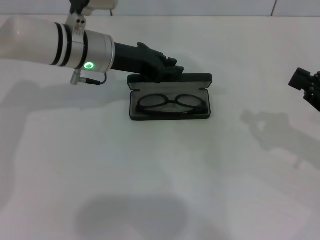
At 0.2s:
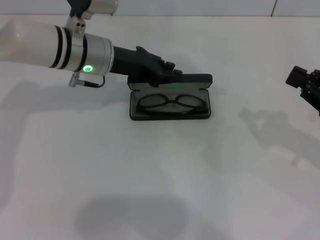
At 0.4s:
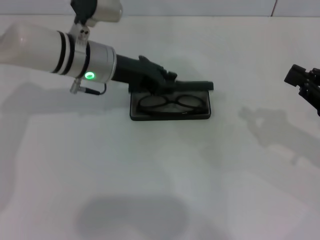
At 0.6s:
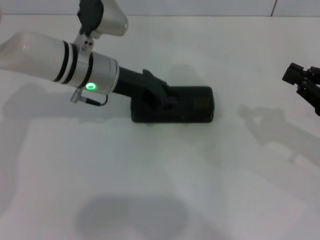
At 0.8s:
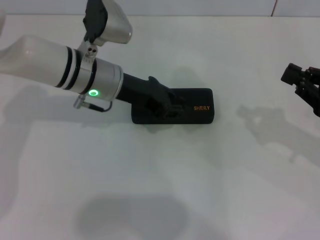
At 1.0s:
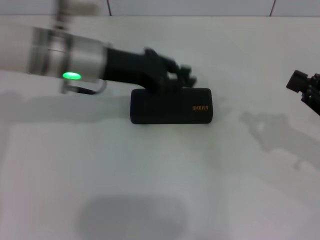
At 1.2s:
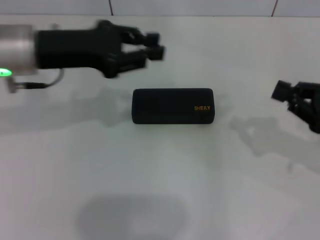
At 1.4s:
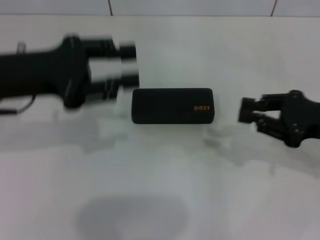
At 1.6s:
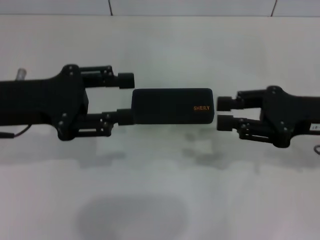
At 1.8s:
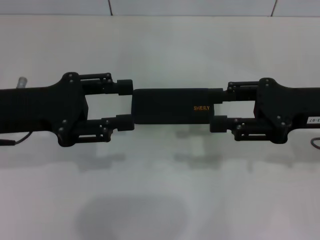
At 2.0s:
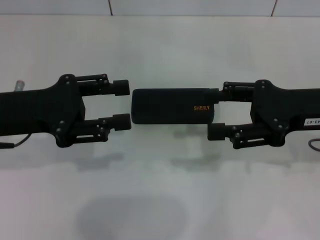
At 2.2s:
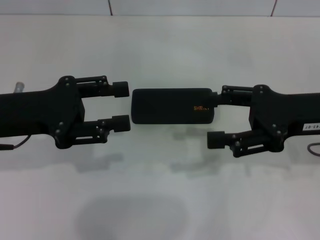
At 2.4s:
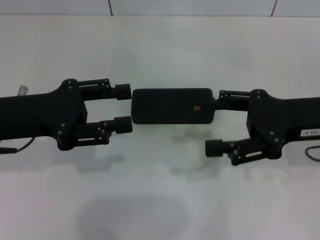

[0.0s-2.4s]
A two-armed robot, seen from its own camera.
0.0s to 1.2s: The left gripper is displaced backward, to the left and upward by approximately 15 cm.
1.2s to 2.4s: The left gripper moves backward, approximately 5 cm, and opens its fingers. Meanwhile the right gripper heads to the left, covering some 10 cm, and opens up.

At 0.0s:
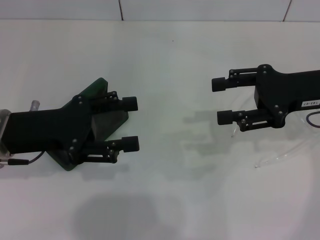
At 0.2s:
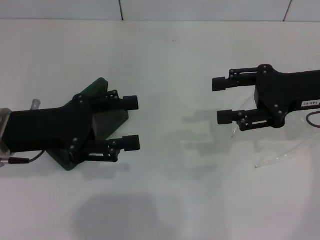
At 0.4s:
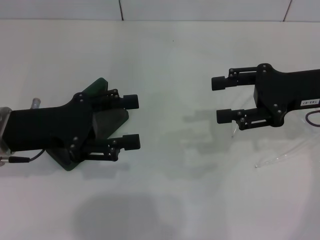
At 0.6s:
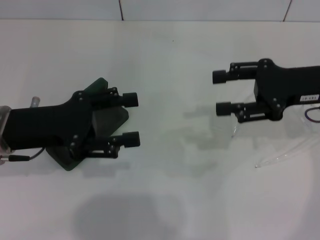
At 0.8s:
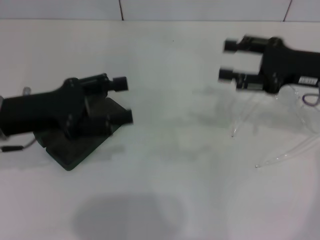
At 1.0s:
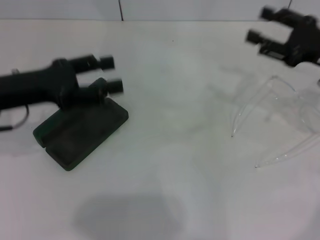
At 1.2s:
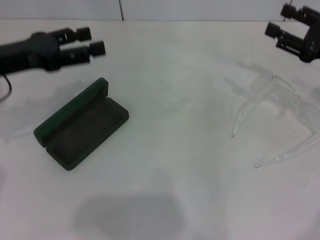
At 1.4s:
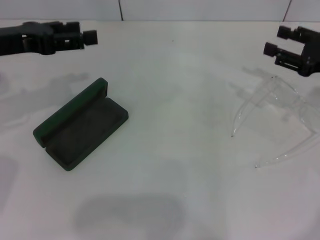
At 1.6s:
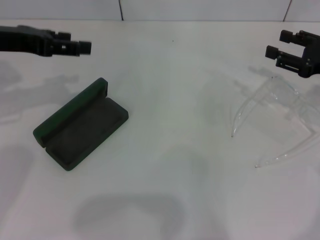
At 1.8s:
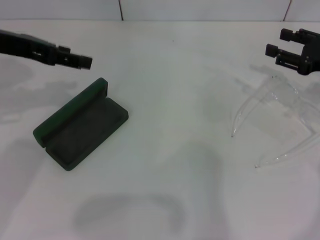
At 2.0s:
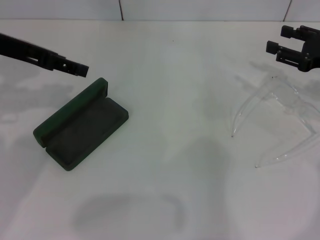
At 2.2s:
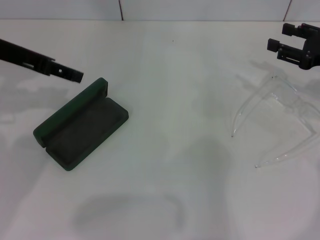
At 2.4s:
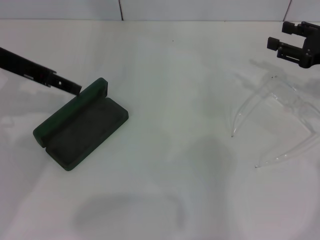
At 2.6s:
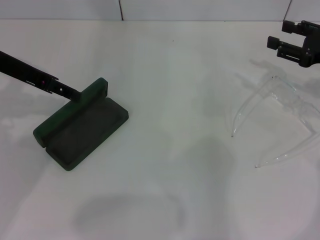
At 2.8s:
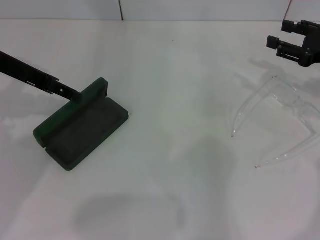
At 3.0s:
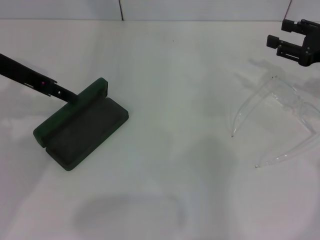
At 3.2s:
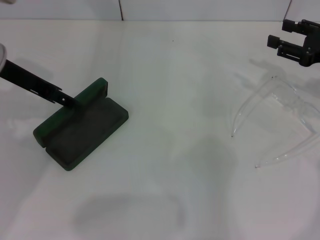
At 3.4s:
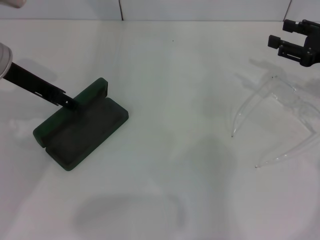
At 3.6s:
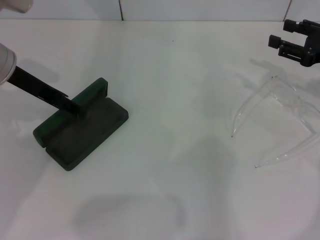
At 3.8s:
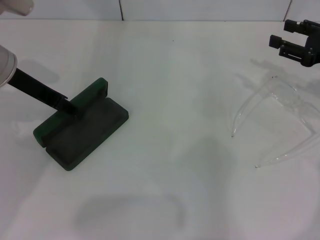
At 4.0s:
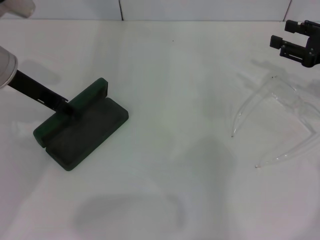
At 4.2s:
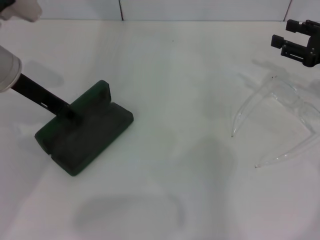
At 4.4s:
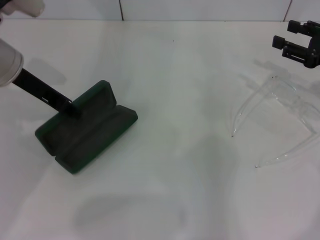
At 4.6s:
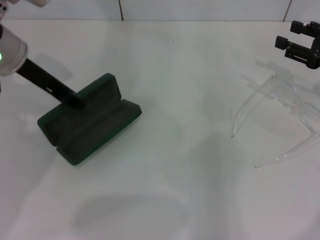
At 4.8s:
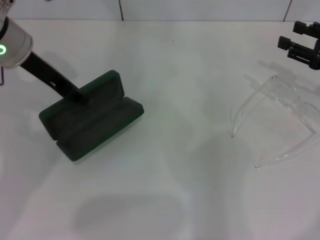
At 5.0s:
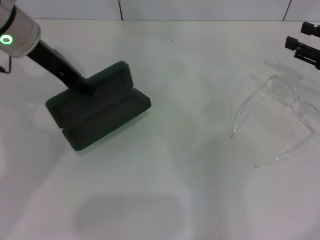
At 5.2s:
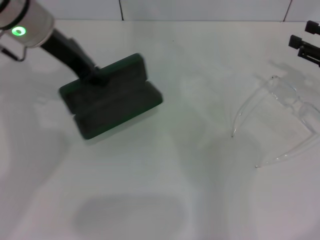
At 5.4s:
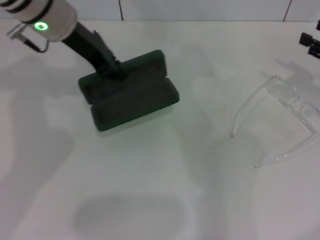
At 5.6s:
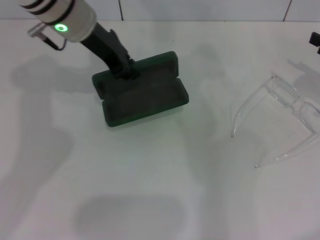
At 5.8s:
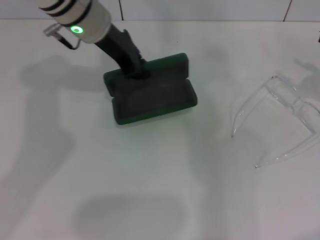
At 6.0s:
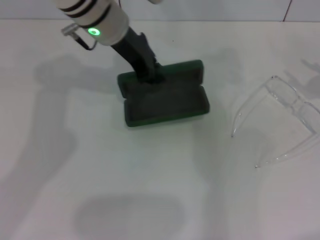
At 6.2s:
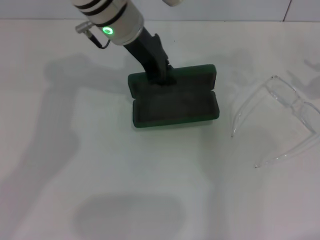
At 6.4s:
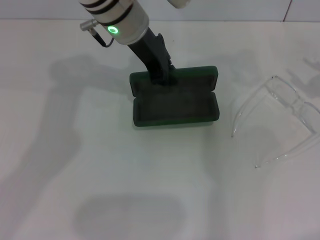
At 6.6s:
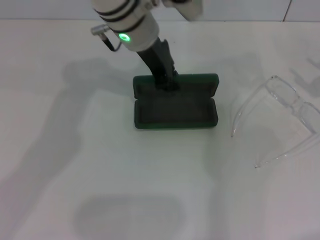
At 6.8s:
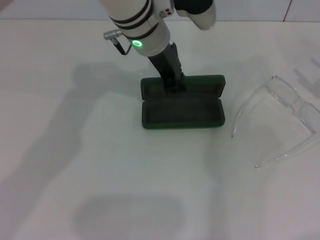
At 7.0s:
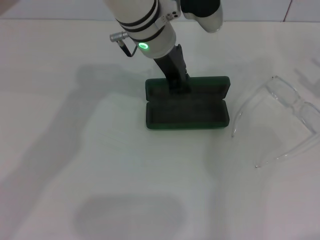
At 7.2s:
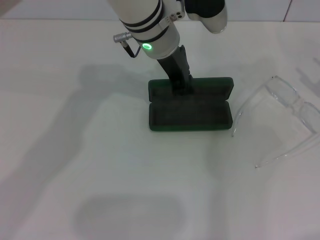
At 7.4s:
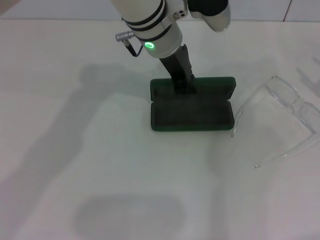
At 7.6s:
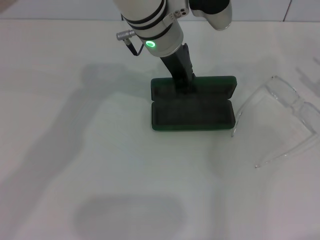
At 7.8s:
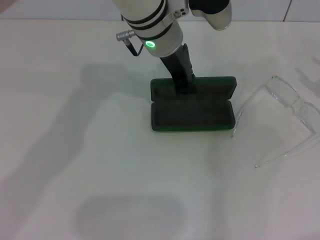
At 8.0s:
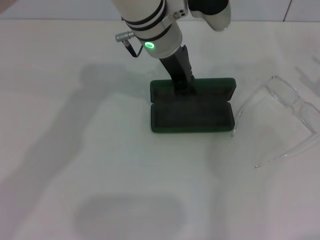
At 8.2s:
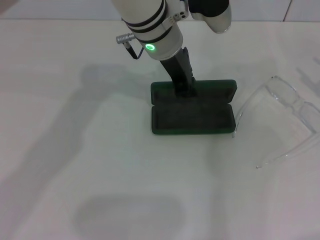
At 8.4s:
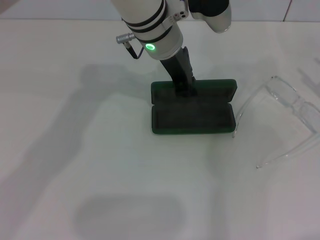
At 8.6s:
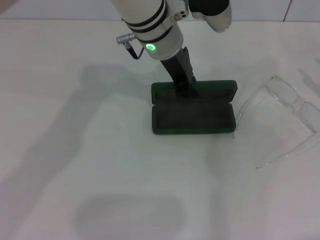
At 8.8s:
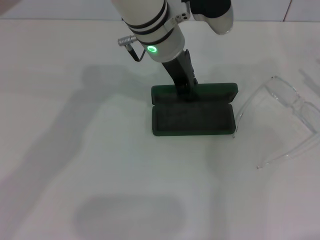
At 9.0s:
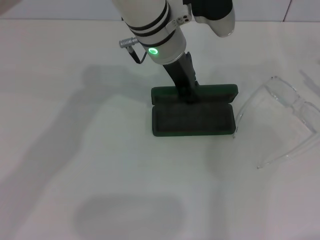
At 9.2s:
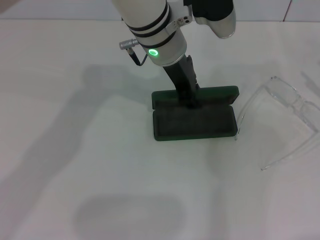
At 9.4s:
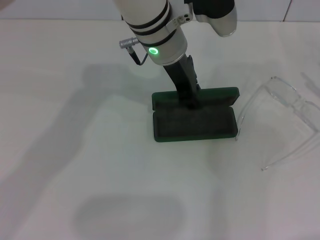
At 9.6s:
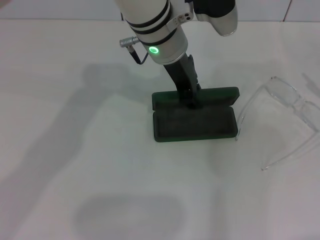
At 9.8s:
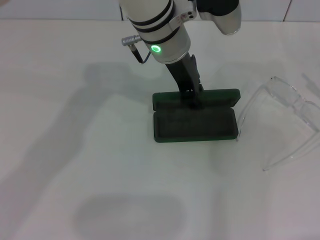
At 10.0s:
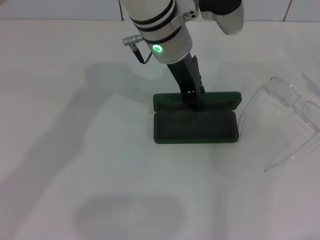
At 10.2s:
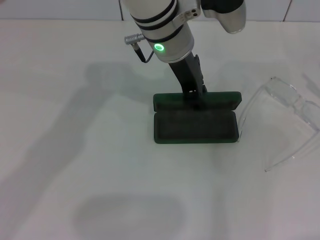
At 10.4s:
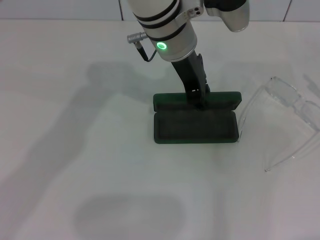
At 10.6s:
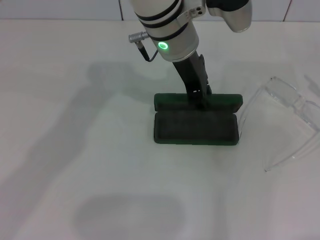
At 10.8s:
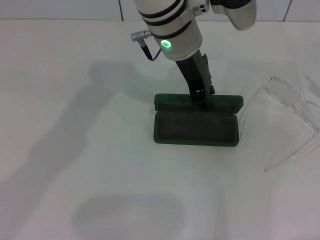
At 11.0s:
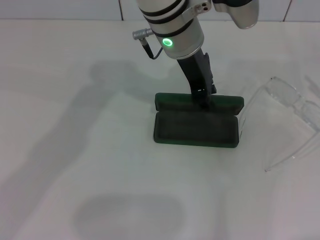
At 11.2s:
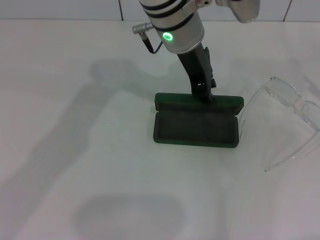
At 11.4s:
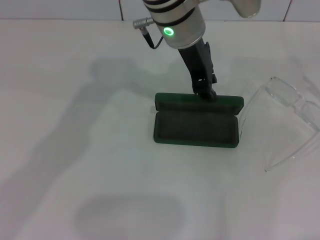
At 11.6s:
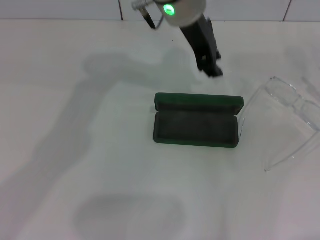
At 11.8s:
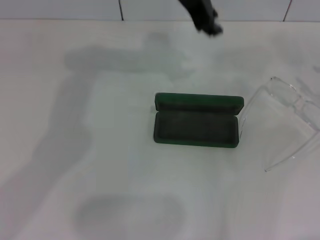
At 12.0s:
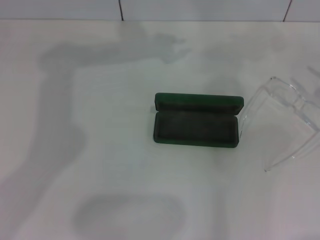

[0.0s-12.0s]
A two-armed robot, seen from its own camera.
Step, 0.0s to 4.0s: Grab the glasses case with your left hand.
Step, 4.4s to 10.0s: Place the glasses case in the center of the table with your left hand.
0.0s to 1.6s: The right gripper goes about 5 cm to the right. Meanwhile the left gripper moves upward and forward, about 10 cm.
3.0s to 4.4s: The left gripper closes its fingers.
4.4s to 6.0s: The right gripper goes about 5 cm to the right. Meanwhile the left gripper goes about 15 cm to the right.
6.0s to 7.6s: The left gripper goes approximately 10 cm to the right.
7.6s to 10.4s: The grippers make only small movements.
10.4s to 12.0s: The left gripper heads upward, forward and to the left, covering about 10 cm.

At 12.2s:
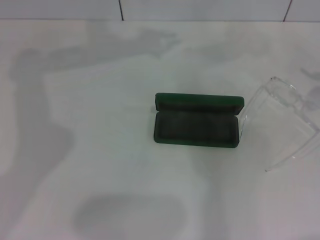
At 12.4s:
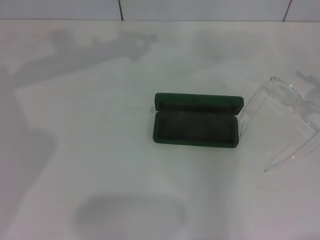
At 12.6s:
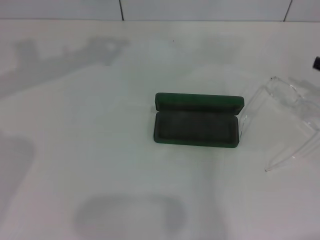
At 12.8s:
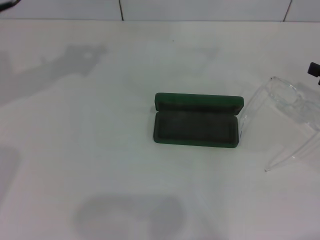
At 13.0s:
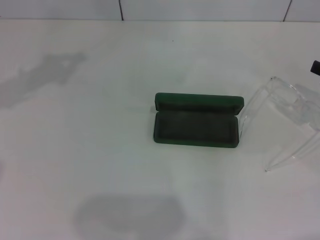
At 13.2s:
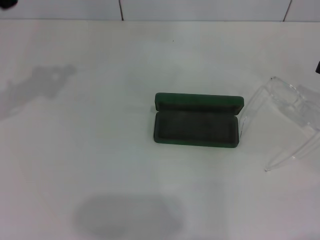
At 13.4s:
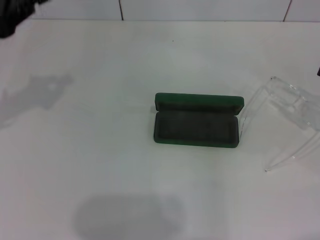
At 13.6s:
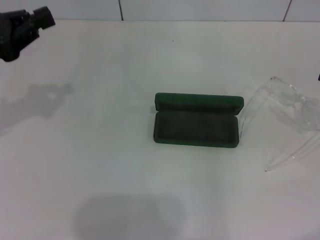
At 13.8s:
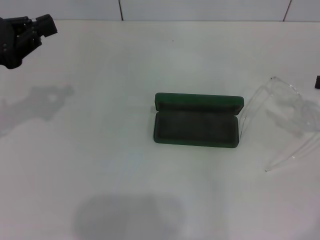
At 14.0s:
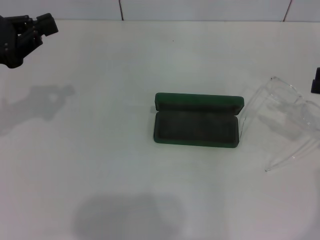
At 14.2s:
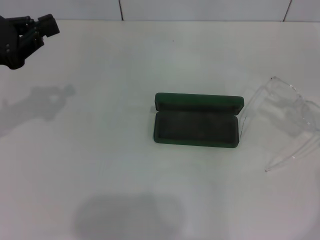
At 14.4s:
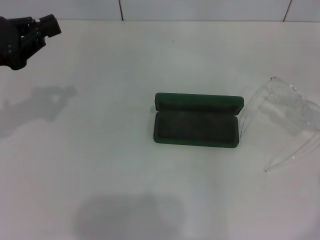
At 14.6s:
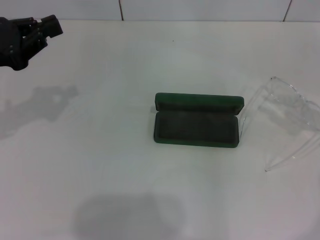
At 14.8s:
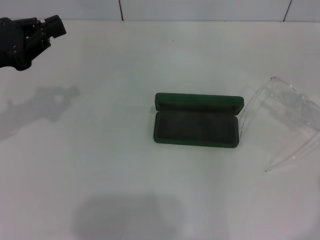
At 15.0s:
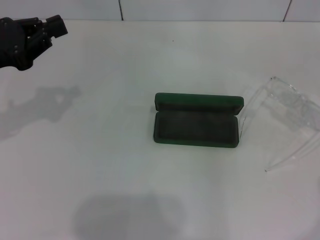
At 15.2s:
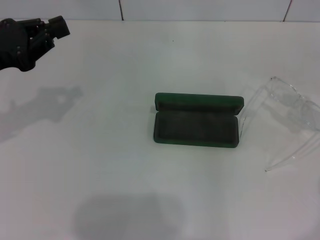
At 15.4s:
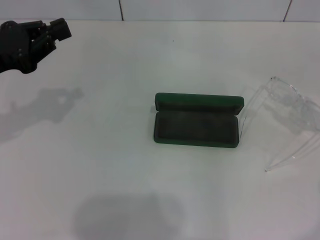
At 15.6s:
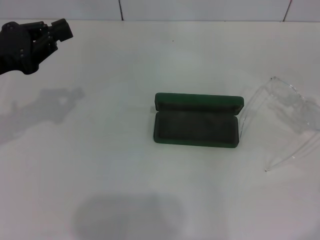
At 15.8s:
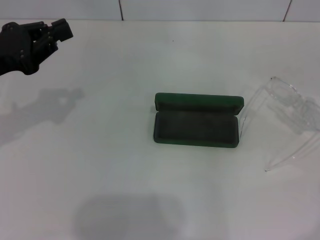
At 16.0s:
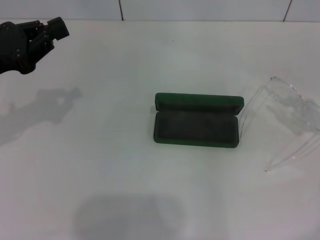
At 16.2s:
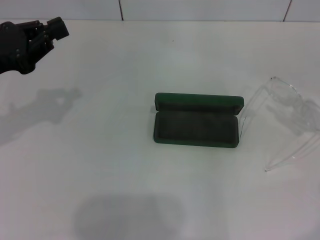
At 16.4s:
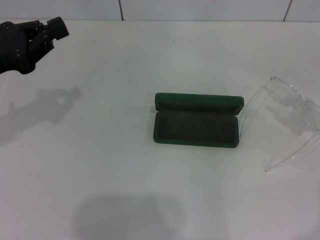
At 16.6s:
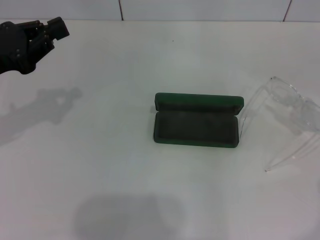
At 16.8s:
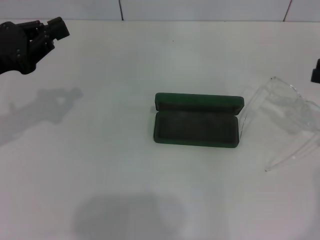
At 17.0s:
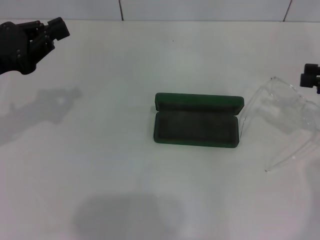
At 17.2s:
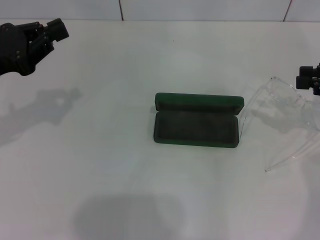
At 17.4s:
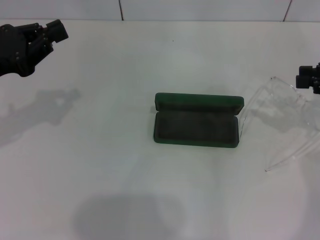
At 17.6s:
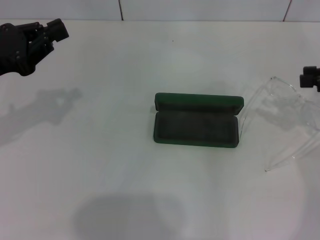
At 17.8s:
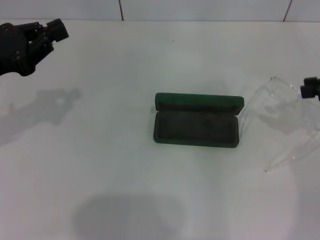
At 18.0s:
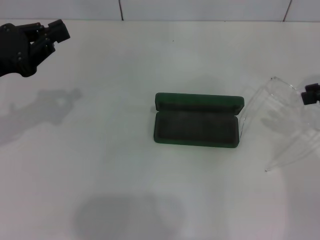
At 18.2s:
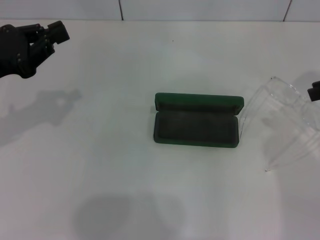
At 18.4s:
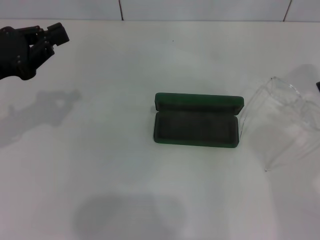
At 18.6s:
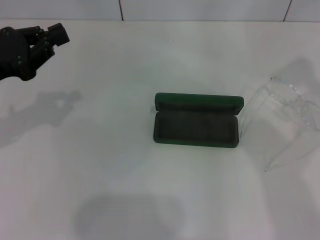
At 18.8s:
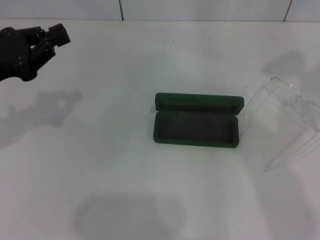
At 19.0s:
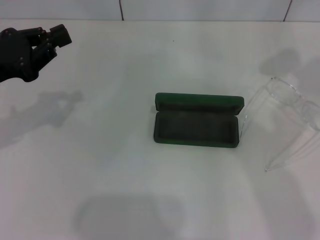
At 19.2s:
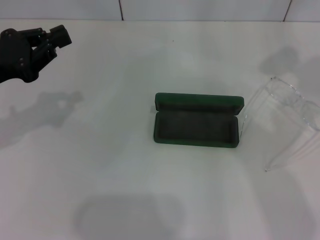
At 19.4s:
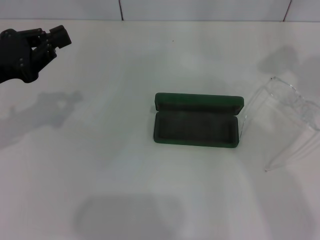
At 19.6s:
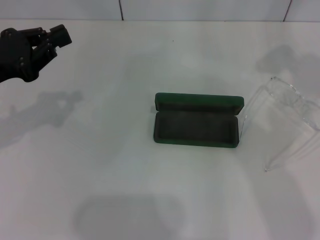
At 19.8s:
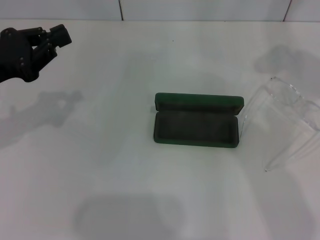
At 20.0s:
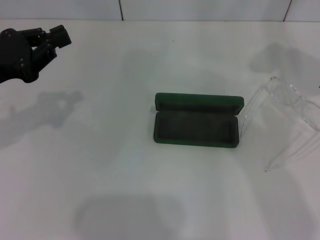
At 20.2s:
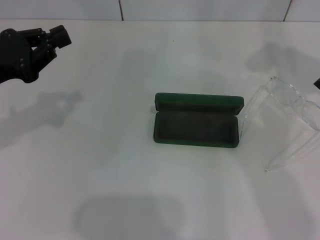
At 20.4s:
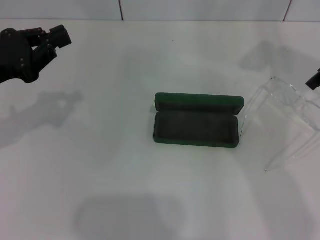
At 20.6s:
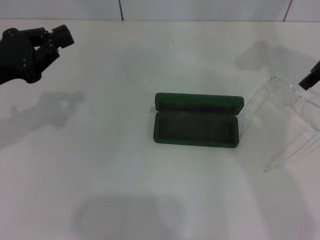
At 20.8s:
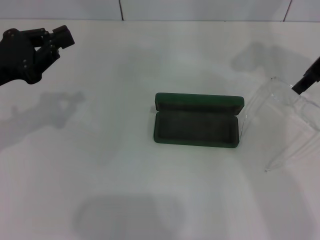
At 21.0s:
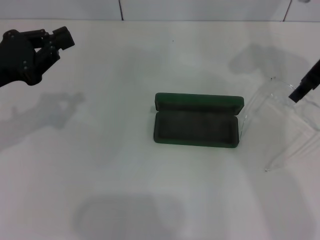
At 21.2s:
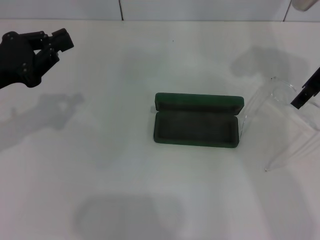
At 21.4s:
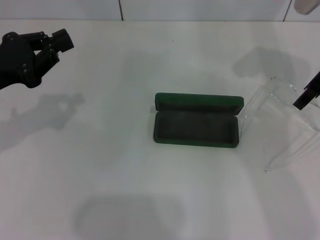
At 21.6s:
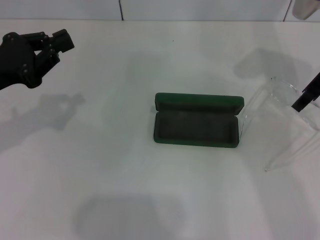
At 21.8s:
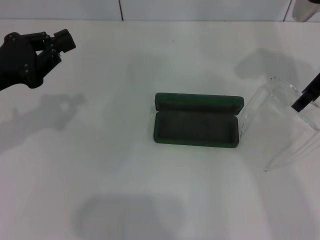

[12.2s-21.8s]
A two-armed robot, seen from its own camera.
12.2s to 13.8s: The left gripper heads to the left, backward and downward, covering approximately 30 cm.
15.4s to 17.0s: The grippers move only a little.
17.0s to 18.6s: The right gripper is displaced upward by roughly 10 cm.
20.2s to 21.8s: The right gripper heads downward, covering approximately 5 cm.
